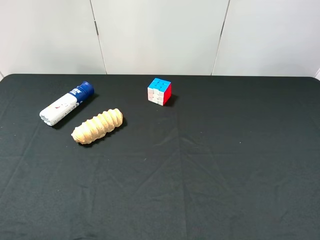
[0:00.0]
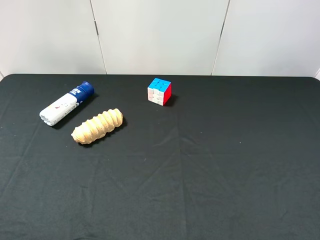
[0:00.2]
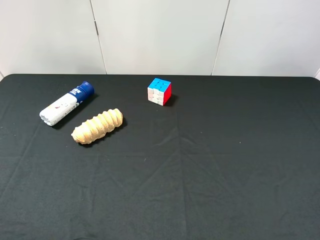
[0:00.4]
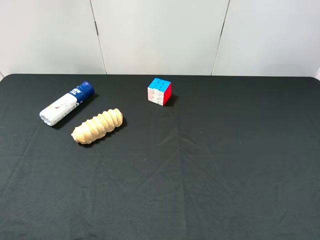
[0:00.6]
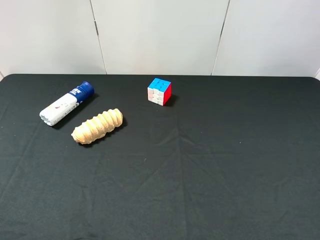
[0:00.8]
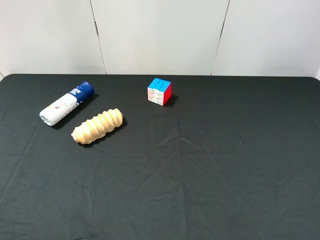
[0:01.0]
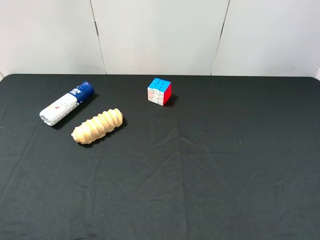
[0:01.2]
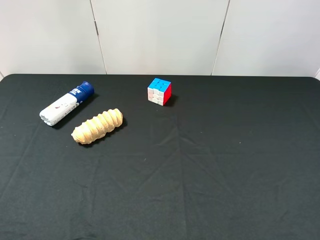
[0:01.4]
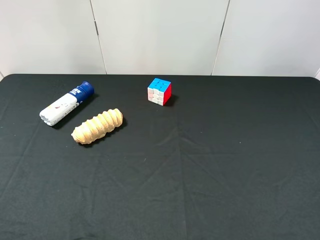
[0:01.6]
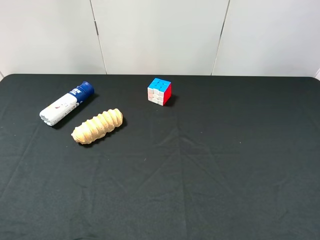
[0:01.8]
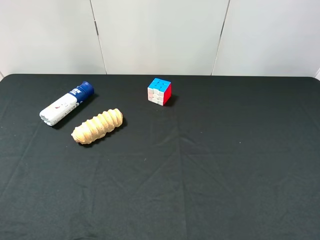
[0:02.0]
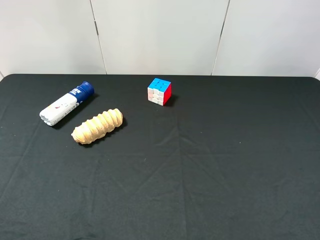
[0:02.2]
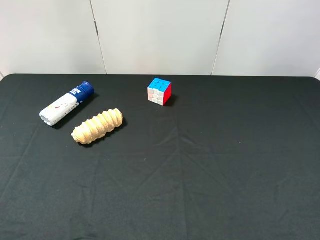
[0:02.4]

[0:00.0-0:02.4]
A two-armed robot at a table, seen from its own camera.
Task of the whole recording: use the right gripper to pick up the item and transfer it from the right gripper to the left gripper.
0:01.2 to 0:02.4: Both grippers stay about where they are.

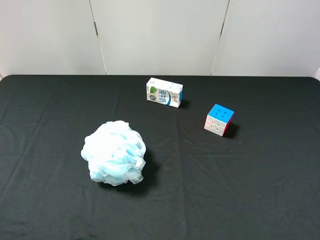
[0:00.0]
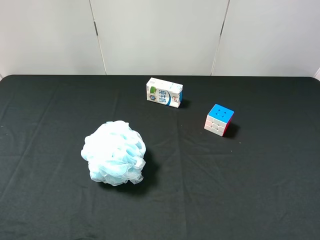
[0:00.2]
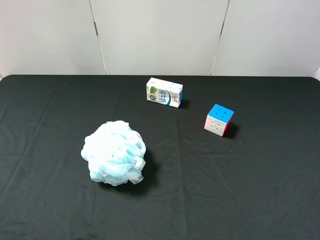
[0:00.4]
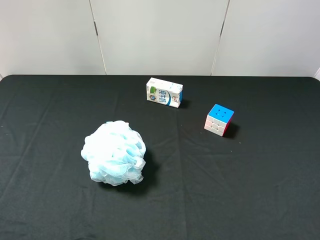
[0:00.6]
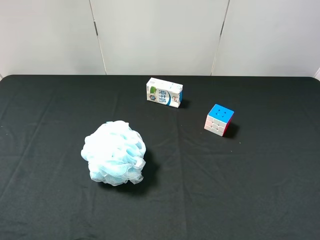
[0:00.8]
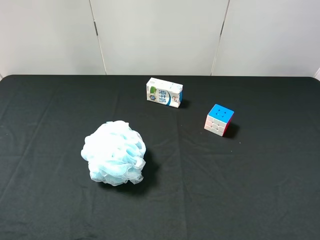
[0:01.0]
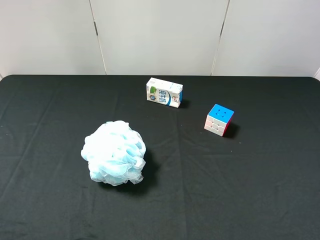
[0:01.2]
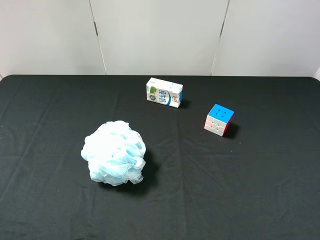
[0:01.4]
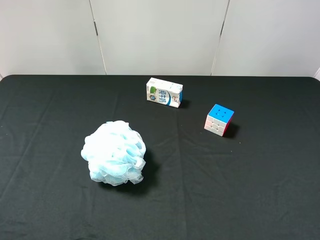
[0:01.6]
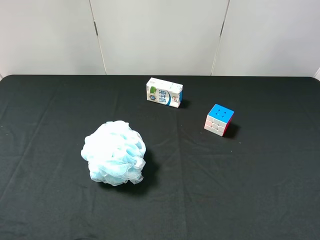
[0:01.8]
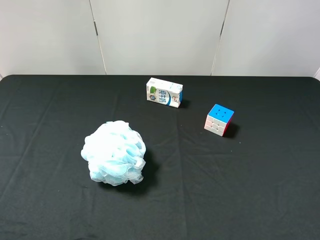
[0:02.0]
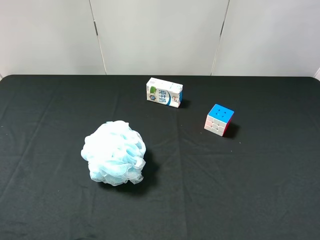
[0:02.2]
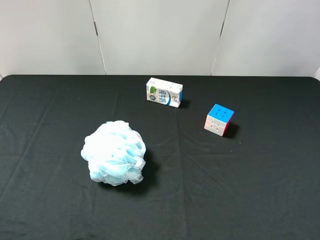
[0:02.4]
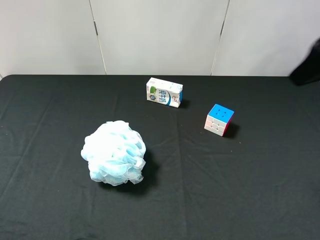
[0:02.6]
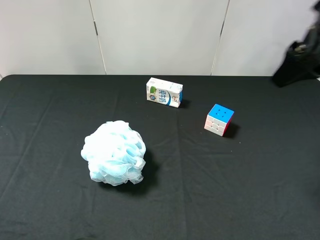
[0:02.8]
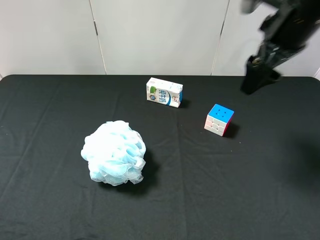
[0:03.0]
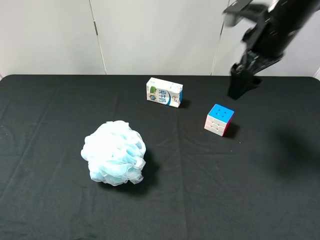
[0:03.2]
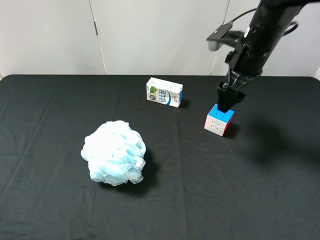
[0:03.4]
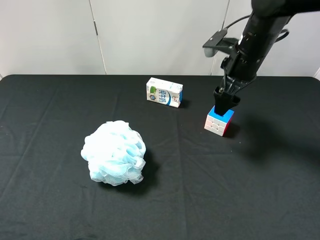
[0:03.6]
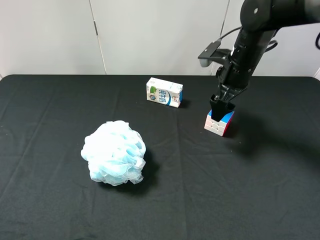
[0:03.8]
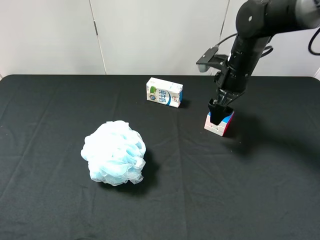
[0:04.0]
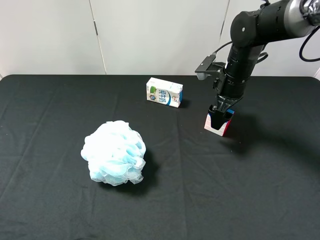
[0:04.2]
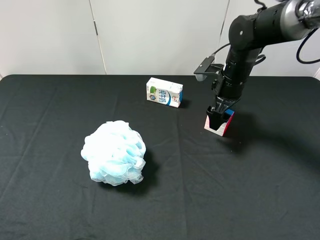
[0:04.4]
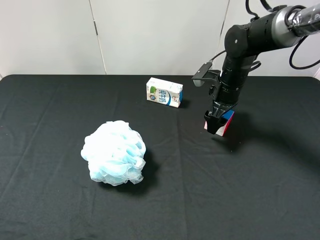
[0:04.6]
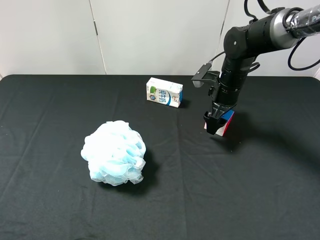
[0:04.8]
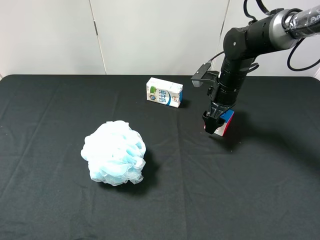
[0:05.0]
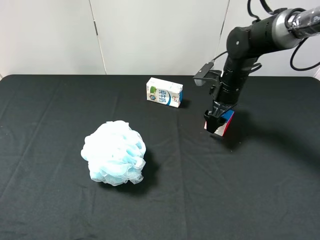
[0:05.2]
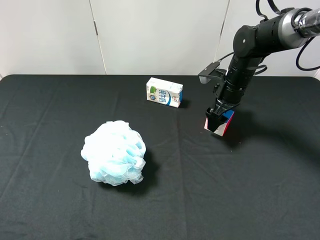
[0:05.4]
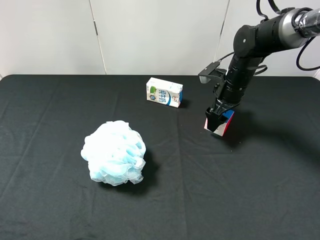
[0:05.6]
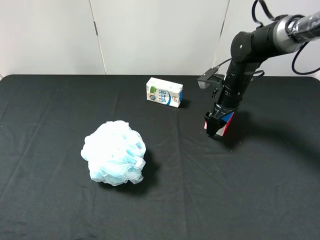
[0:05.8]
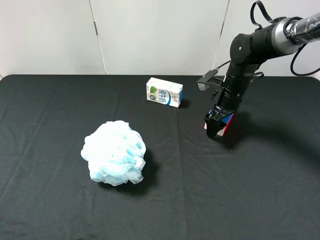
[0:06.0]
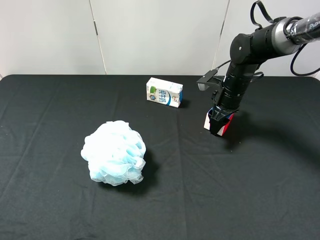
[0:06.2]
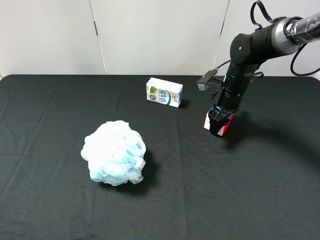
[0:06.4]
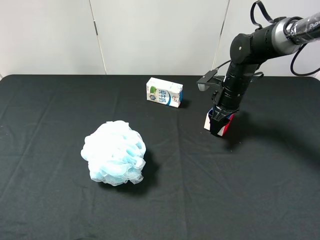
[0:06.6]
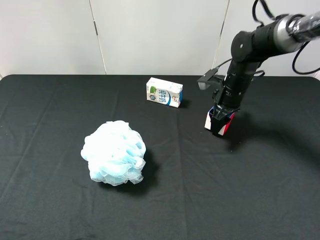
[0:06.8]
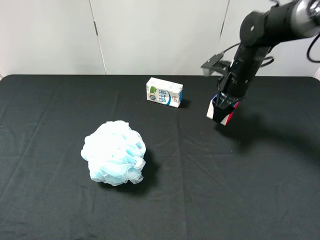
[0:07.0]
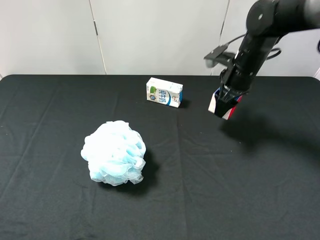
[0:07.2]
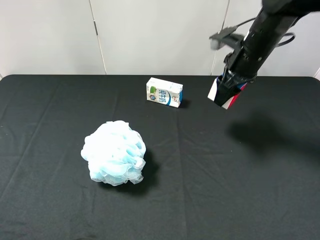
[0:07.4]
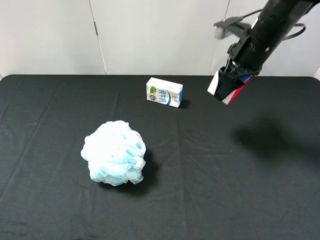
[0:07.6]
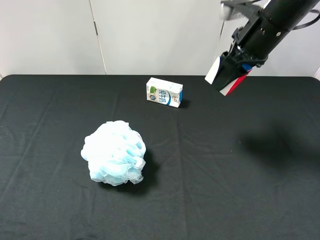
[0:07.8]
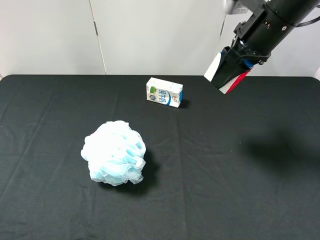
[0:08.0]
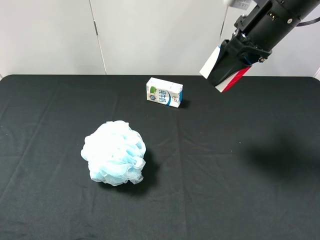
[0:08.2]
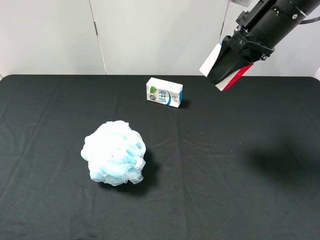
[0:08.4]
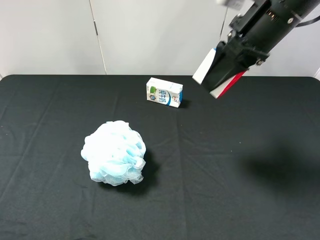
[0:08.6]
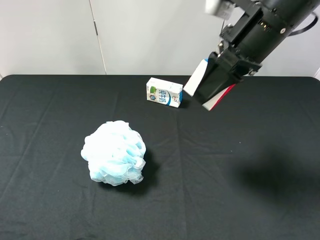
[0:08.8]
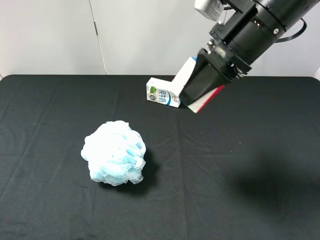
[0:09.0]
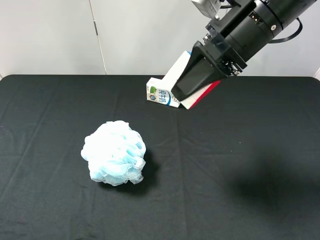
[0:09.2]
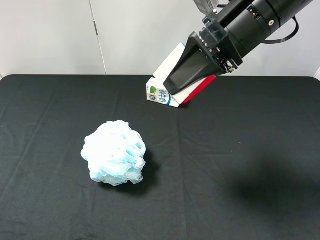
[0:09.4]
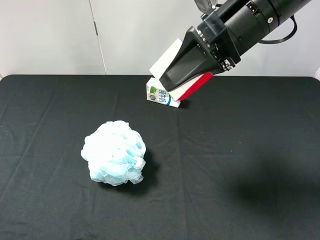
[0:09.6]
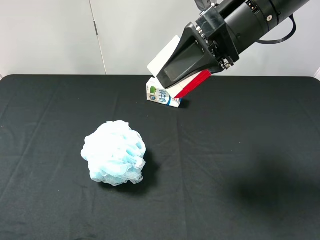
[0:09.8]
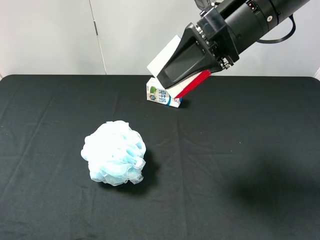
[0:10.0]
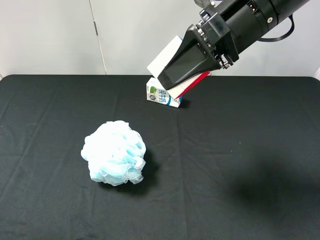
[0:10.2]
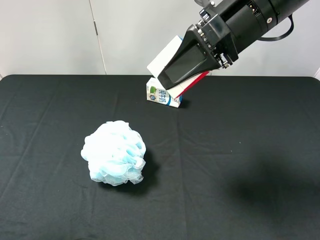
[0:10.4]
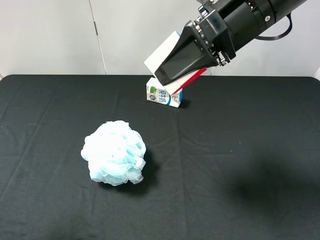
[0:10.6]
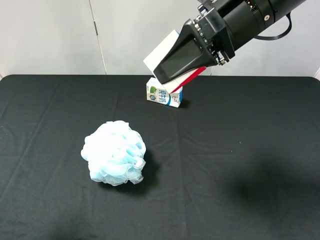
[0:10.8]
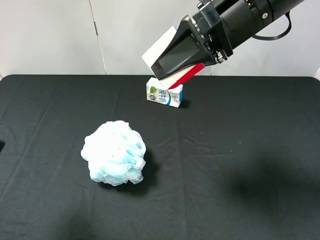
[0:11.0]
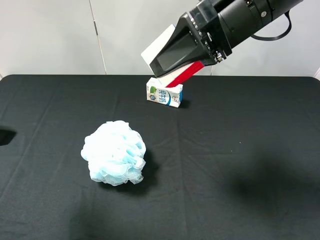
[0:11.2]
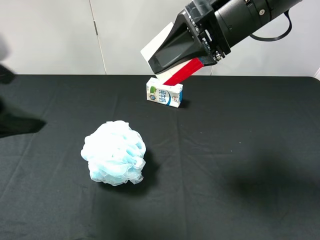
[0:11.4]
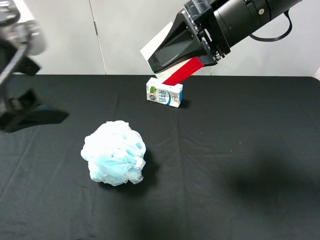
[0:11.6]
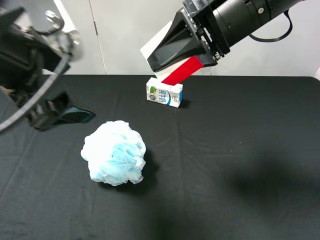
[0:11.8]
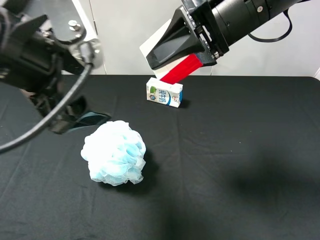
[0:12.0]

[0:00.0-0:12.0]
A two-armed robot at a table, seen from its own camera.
Task of the whole recording: use the right gripper to pick up the item and transfer it from the right gripper to the left gripper.
Step, 0:00.0 to 0:06.4: Use the right gripper to grab the Rubik's Cube on the right side of the table.
0:01.6 to 0:03.0: The right gripper goes approximately 30 cm forward and to the left.
0:03.0 to 0:04.4: The right gripper moves downward and forward, some 20 cm.
0:04.4 to 0:06.0: The grippers move only a little.
0:06.0 to 0:07.6: The right gripper is displaced upward by about 15 cm, and closes up.
0:07.6 to 0:09.0: The right gripper heads backward, upward and to the left, covering some 10 cm.
0:09.0 to 0:10.4: The left gripper heads forward, covering some 5 cm.
0:10.4 to 0:12.0: The left gripper shifts about 20 cm to the right and forward.

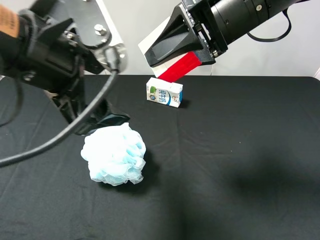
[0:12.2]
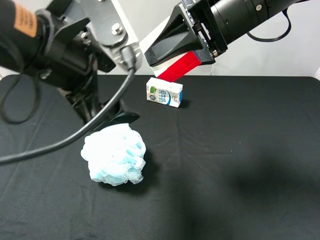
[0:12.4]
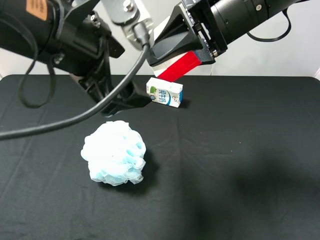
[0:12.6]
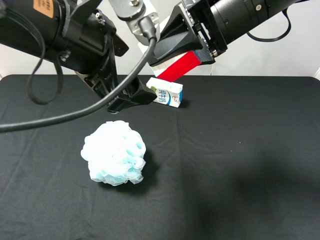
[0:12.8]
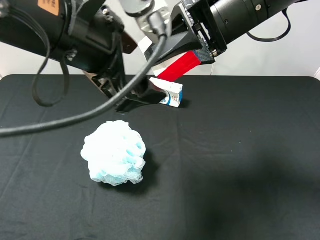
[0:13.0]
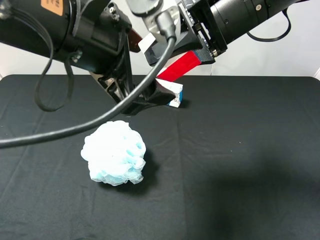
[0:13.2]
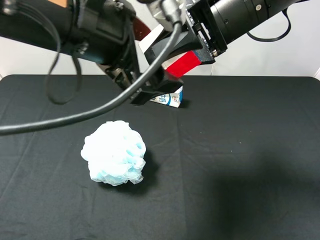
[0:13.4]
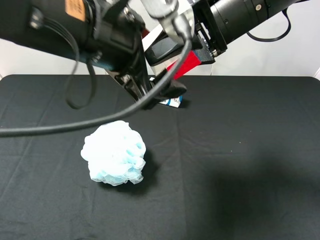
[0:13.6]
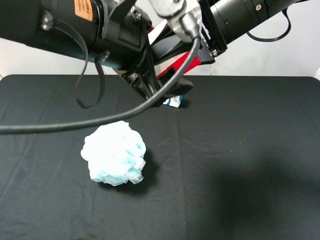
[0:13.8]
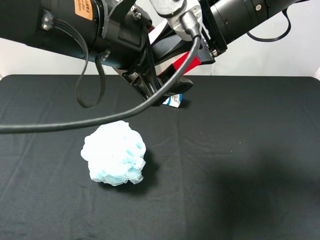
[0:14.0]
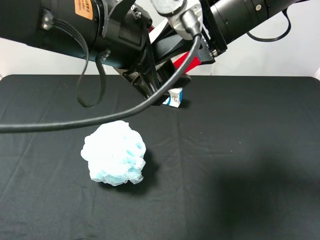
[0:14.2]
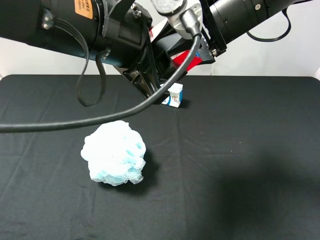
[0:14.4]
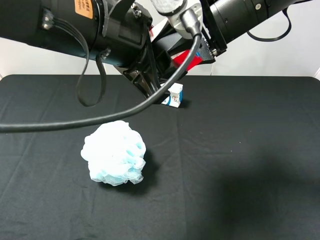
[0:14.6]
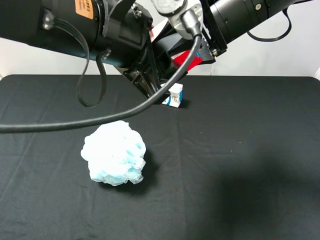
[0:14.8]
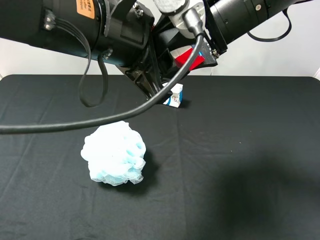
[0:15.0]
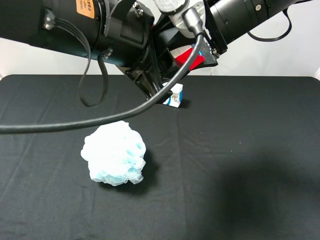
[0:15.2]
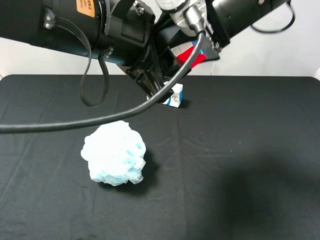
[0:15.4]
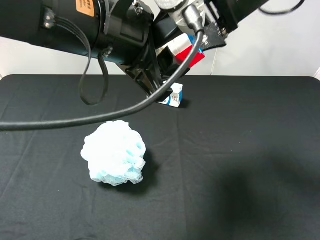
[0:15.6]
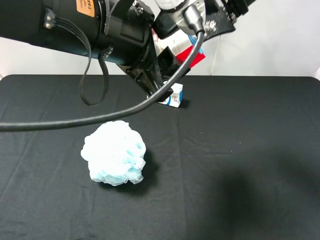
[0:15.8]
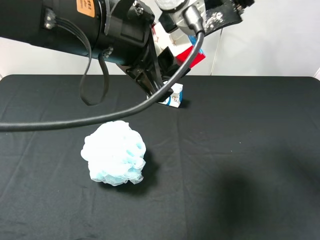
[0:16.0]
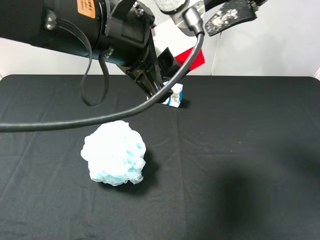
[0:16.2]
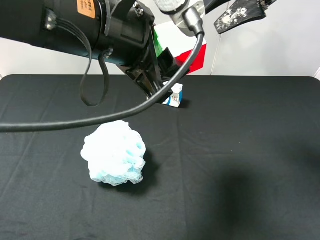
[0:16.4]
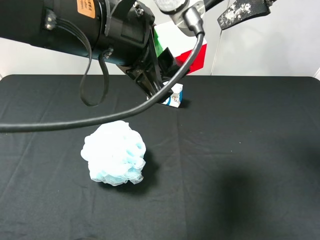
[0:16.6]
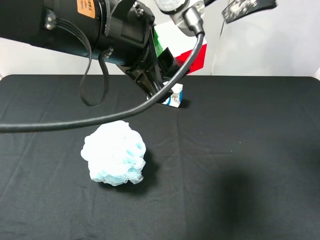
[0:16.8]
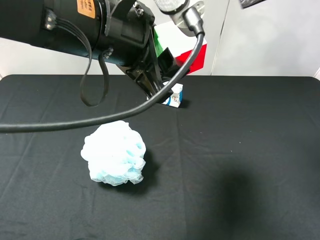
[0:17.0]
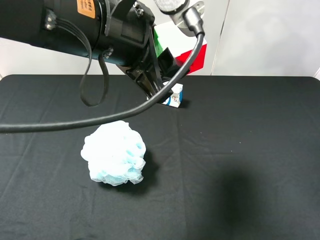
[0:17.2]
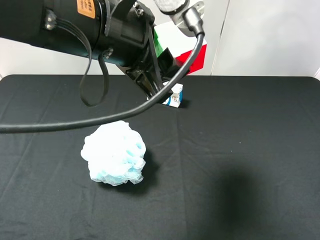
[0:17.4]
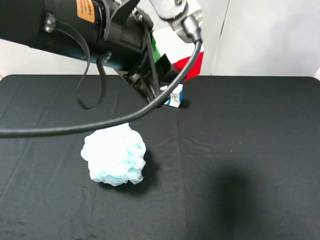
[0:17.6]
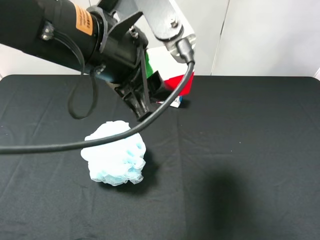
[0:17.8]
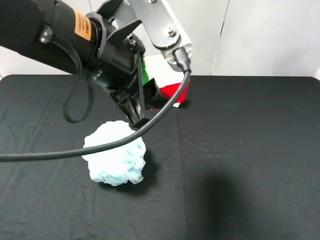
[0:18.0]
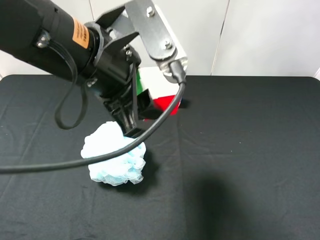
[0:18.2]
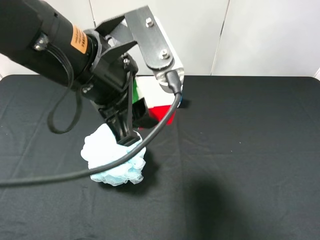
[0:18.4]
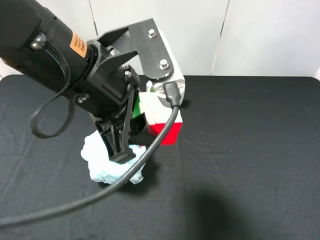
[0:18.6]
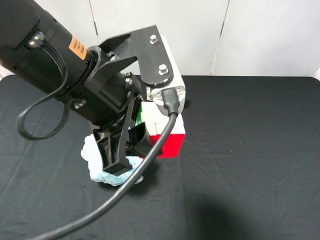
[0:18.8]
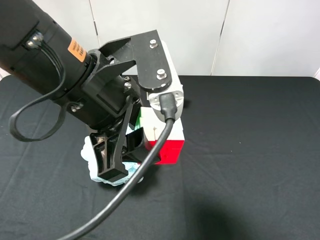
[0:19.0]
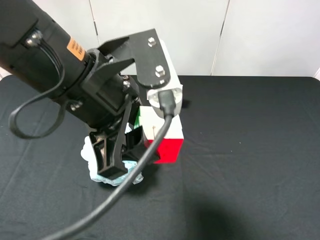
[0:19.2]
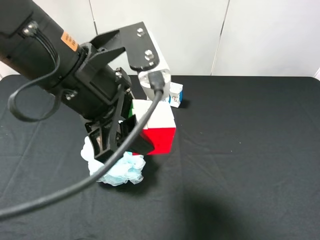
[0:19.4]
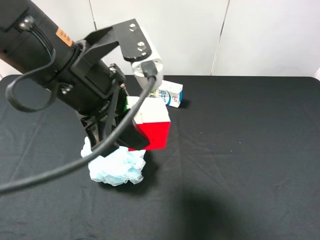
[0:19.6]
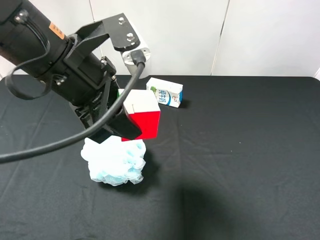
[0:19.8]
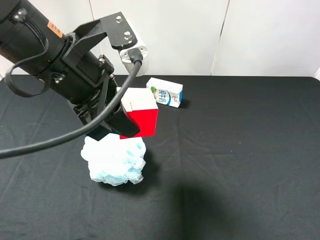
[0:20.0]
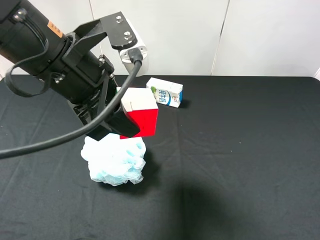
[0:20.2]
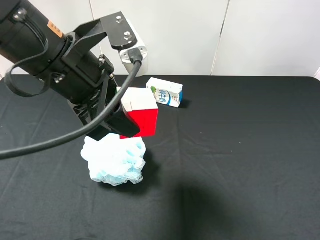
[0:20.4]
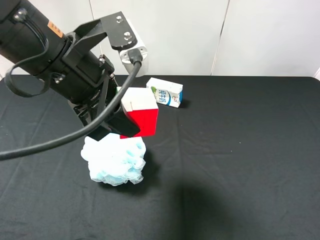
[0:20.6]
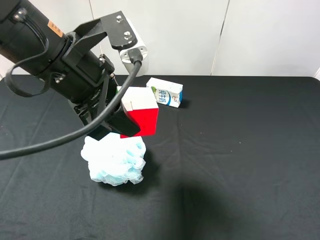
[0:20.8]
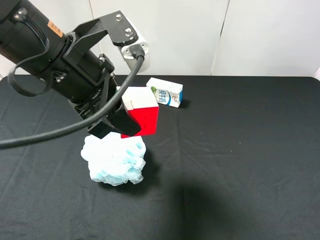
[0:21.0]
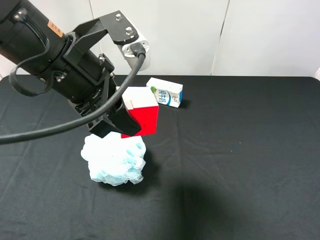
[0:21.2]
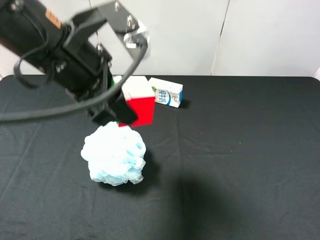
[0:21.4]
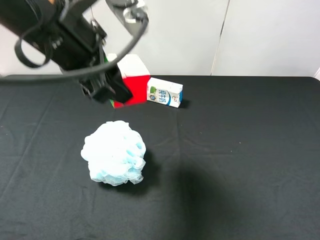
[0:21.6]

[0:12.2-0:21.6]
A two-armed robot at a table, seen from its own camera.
Task of the whole recording: use the right gripper to pick up the item and transfer it from the right gripper to the left gripper.
Step, 0:12.2 to 0:16.0: Pass the Rubik's Cube to the left gripper.
0:12.2 to 0:13.8: The left gripper moves to the right, approximately 5 cm.
0:13.8 to 0:15.4: The left gripper closes its fingers. Meanwhile the right gripper opens up.
0:15.4 to 0:17.0: The right gripper shifts approximately 10 cm to the right and upward.
0:17.0 to 0:18.4: The right gripper heads backward, to the right and downward, covering about 20 cm.
0:18.4 to 0:20.0: The right gripper goes about 10 cm backward and downward.
0:20.0 to 0:21.6: There are only small adjustments of the grippers.
